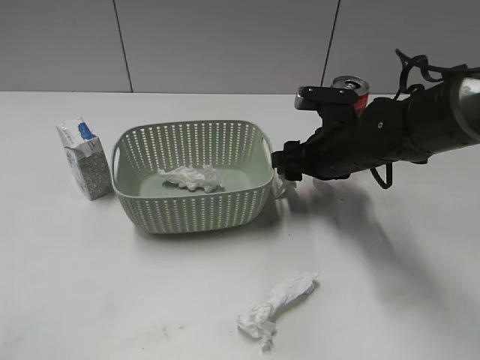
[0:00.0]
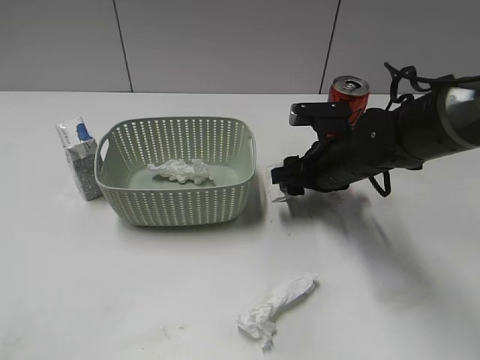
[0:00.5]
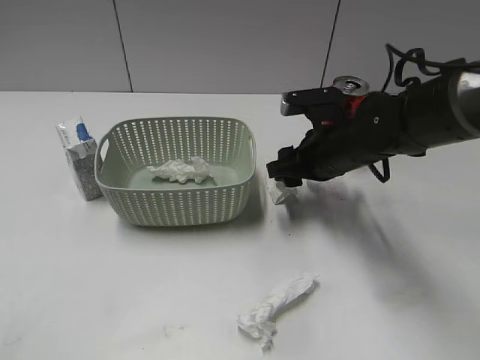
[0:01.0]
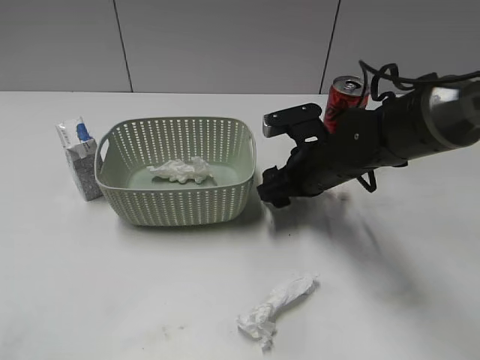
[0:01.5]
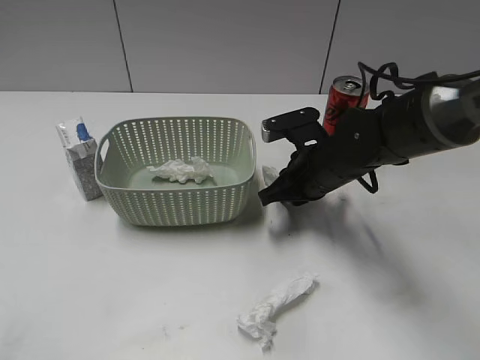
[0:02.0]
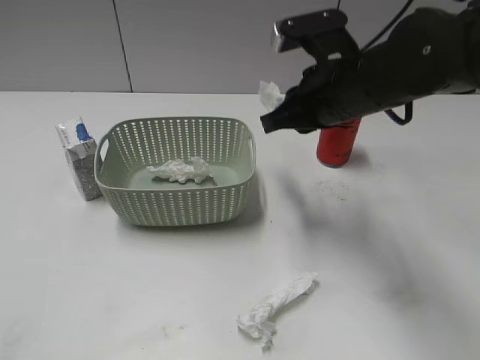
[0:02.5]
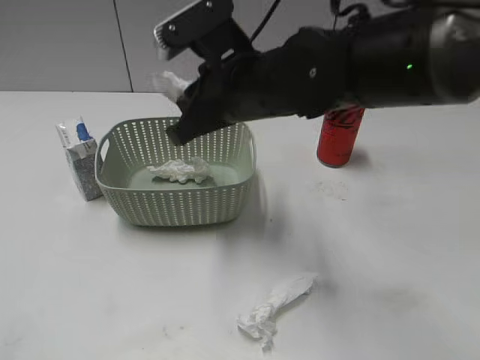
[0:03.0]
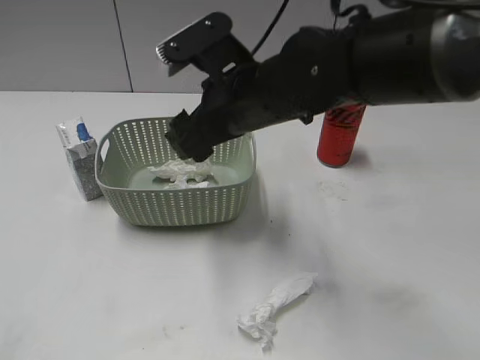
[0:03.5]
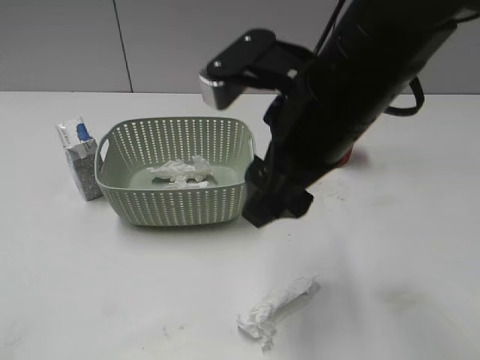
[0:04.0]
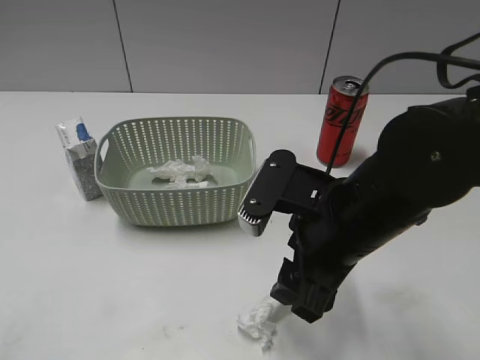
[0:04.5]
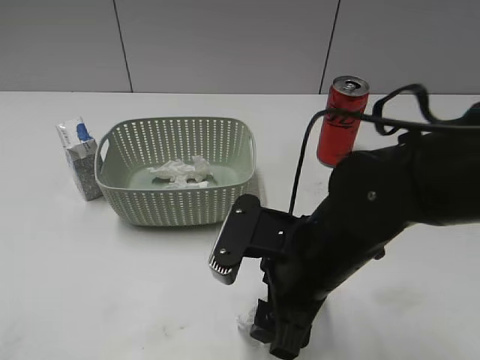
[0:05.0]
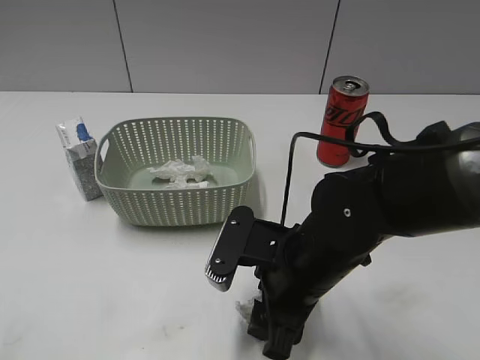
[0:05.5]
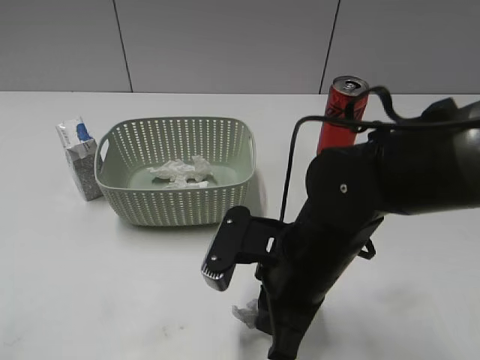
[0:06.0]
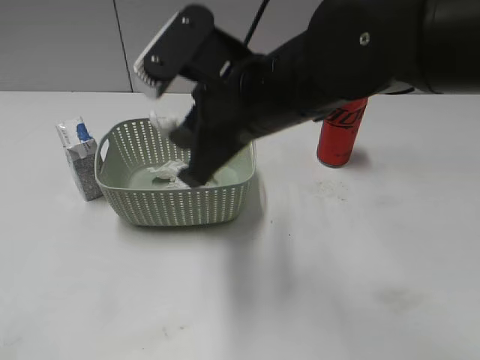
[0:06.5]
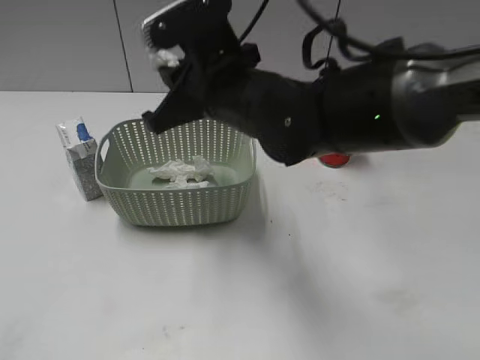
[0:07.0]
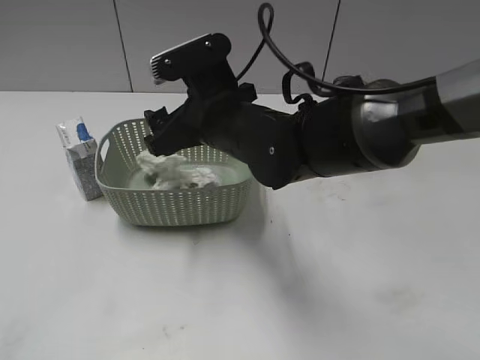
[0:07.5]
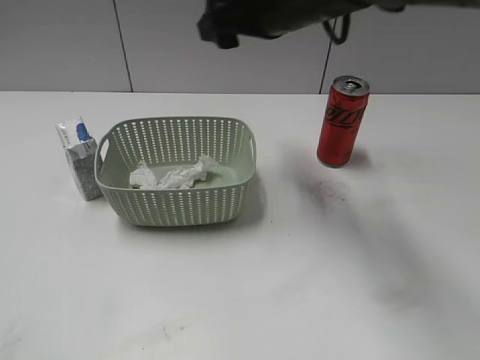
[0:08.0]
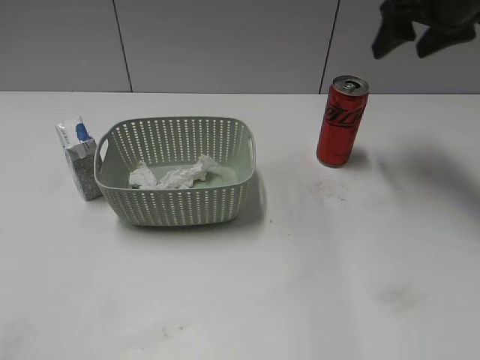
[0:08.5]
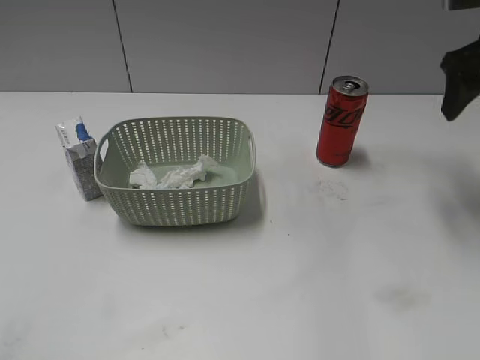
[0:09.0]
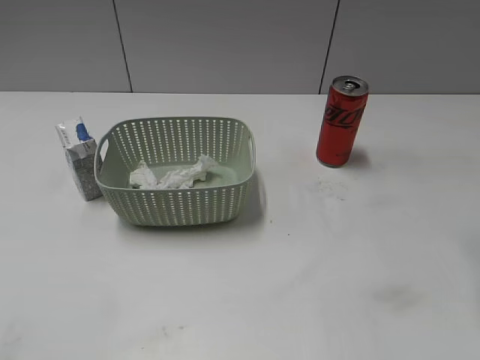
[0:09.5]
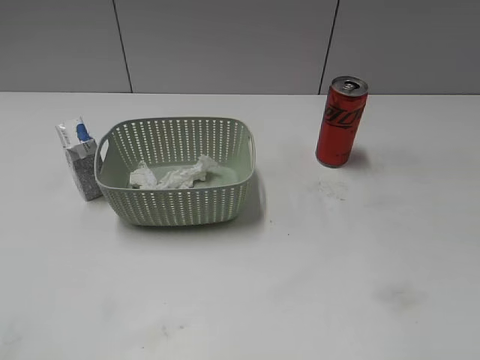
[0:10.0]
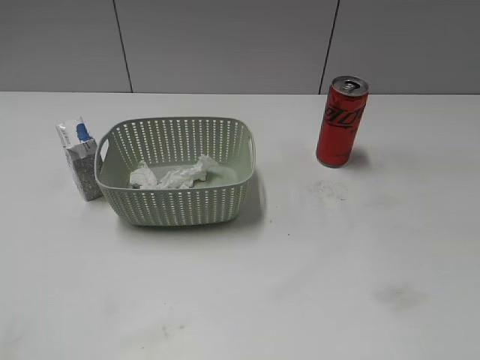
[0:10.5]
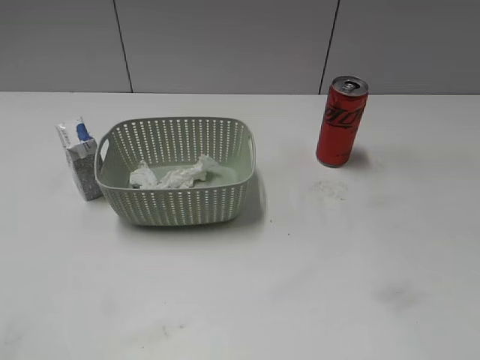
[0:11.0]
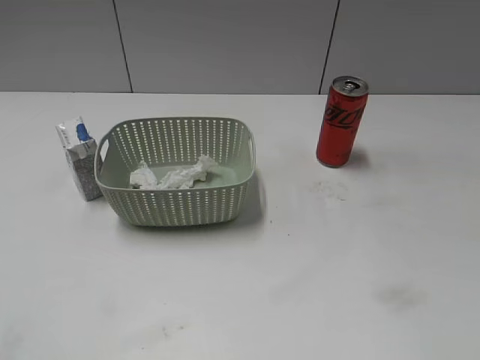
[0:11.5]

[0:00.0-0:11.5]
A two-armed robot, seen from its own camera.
Step, 0:00.0 to 0:02.0: Grasp the waste paper with right gripper.
Step, 0:01.0 to 0:07.5: Place the waste paper in the basket with right gripper.
Step, 0:04.0 to 0:05.5: Grasp the waste paper with right gripper.
0:00.0 to 0:02.0: The right gripper closes its fingers.
0:02.0 to 0:04.0: The right gripper heads upward and backward, covering approximately 20 cm, and opens.
0:04.0 to 0:06.0: The right gripper heads downward, covering about 15 cm, and closes.
0:06.0 to 0:07.5: The right gripper goes about 15 cm forward and to the left, and opens its fingers.
0:07.5 to 0:09.5: The right gripper heads to the right, covering some 30 cm.

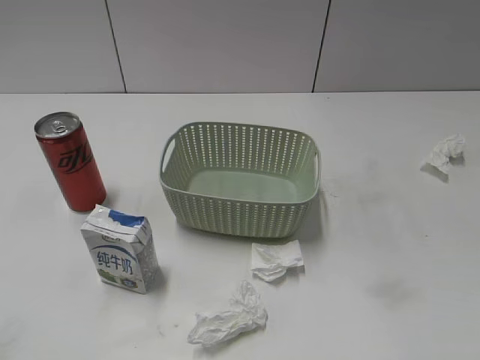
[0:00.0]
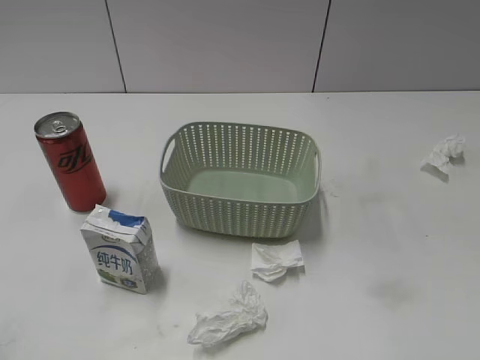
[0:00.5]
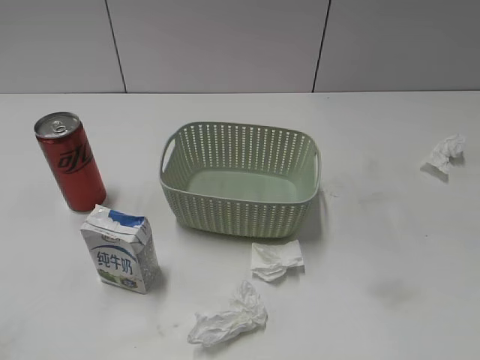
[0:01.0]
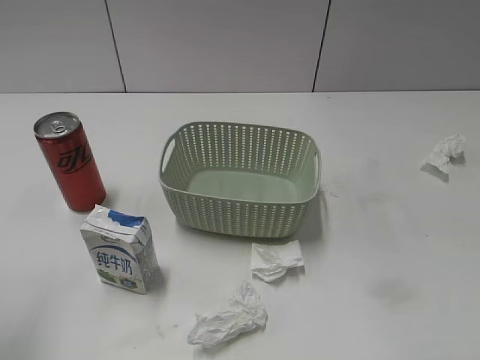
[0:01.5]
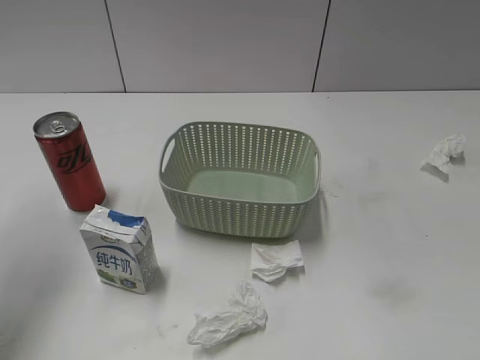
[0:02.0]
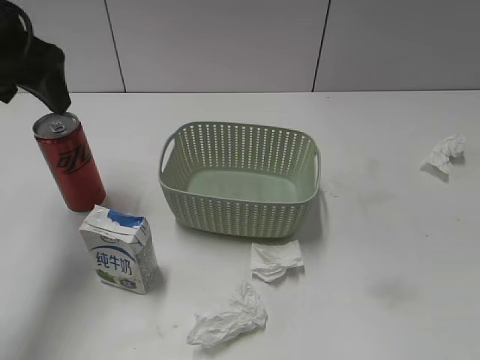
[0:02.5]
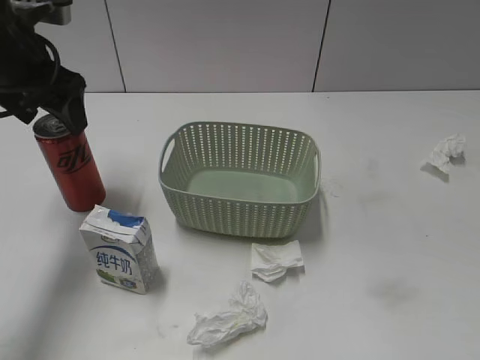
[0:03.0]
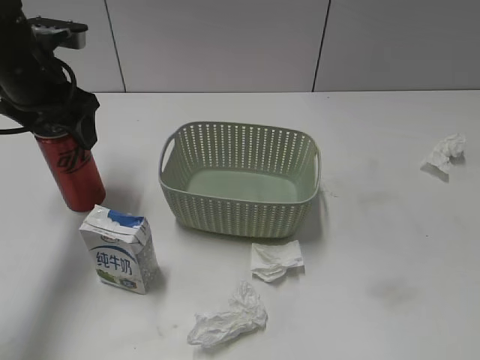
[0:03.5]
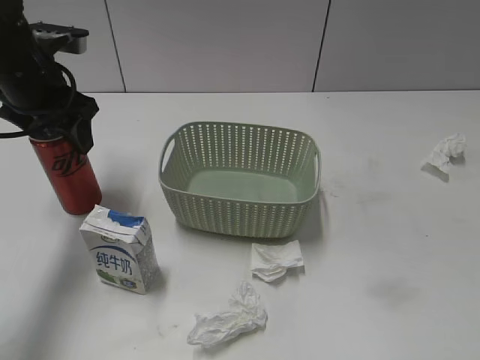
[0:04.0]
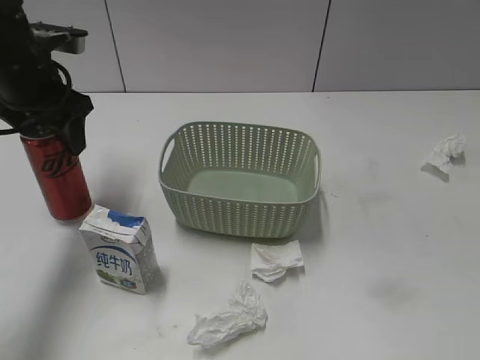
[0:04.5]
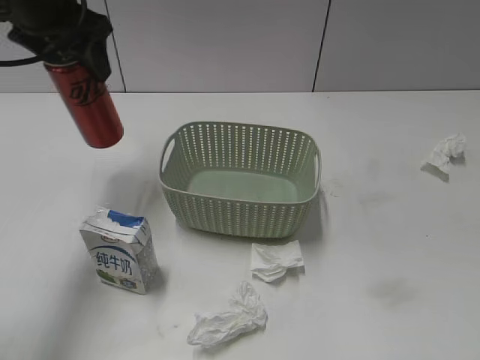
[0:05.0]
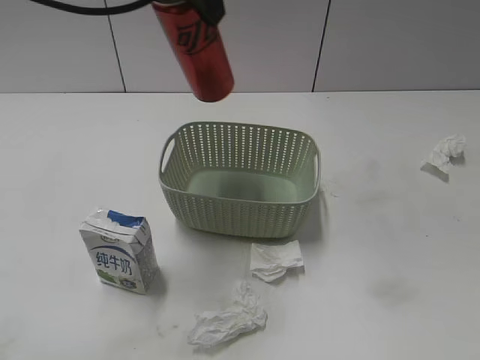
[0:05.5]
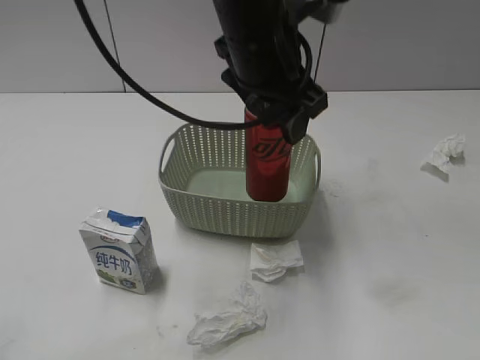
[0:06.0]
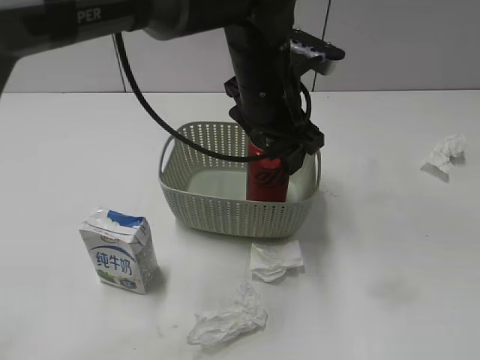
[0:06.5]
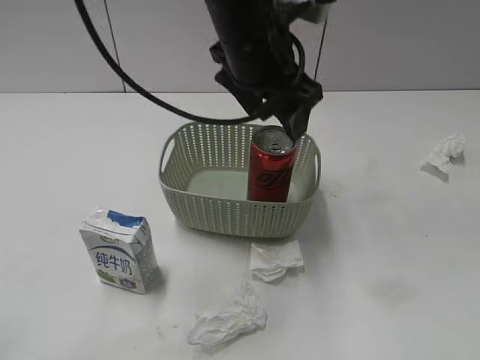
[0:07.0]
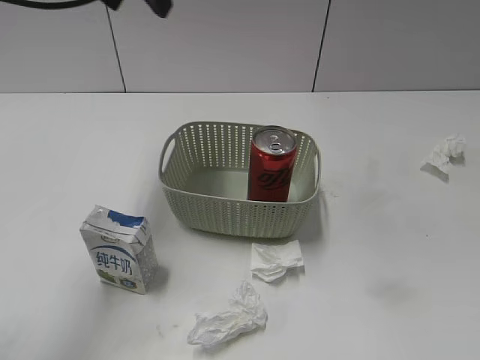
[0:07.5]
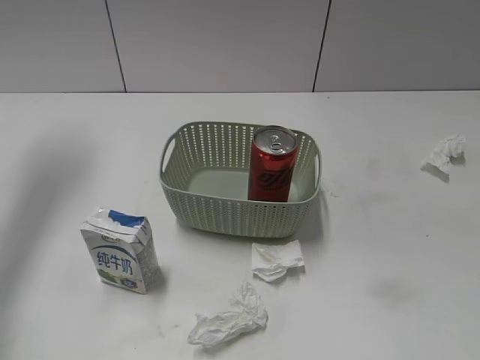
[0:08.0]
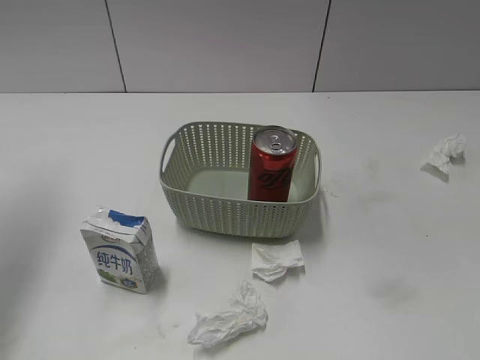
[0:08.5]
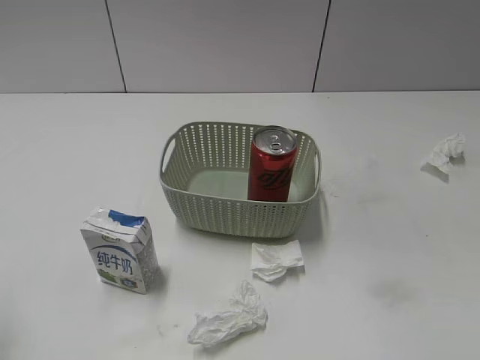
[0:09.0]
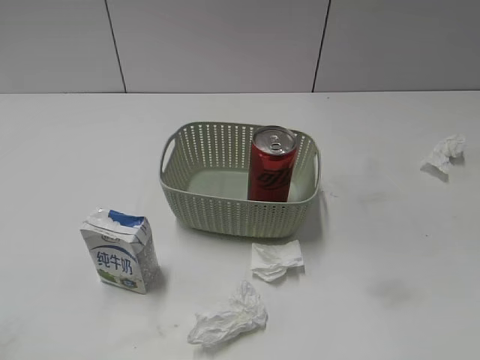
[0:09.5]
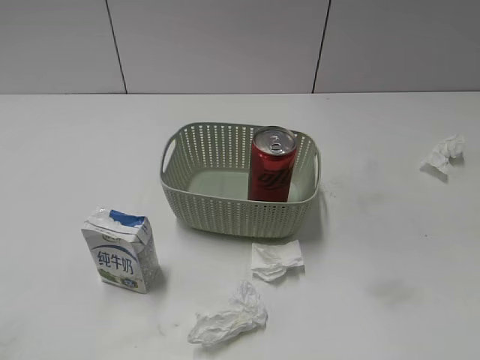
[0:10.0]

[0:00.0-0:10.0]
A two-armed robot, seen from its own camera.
Step, 0:02.5 to 0:03.5: Grasp the cola can with left gripper.
Step, 0:04.0 to 0:07.0: Place the cola can in the basket with left gripper.
0:02.0 to 0:04.0: The left gripper is displaced downward, forward and to the right by some 20 cm, and closes.
0:04.0 to 0:06.0: The left gripper moves to the right, about 25 cm.
0:06.0 to 0:08.0: The left gripper travels to the left by some 35 cm, and opens.
0:08.0 to 0:10.0: The left gripper travels backward by some 40 cm.

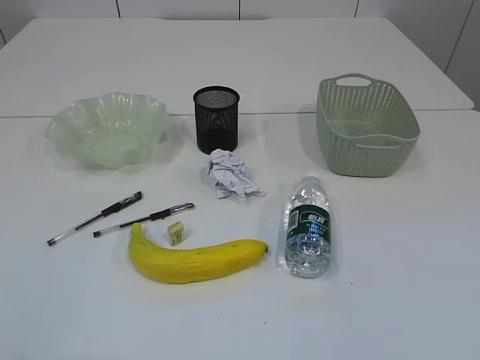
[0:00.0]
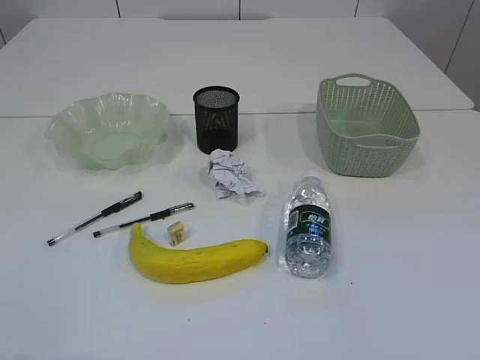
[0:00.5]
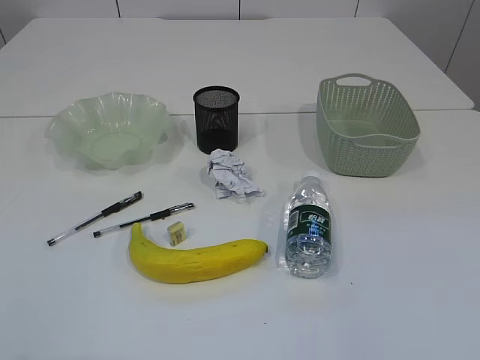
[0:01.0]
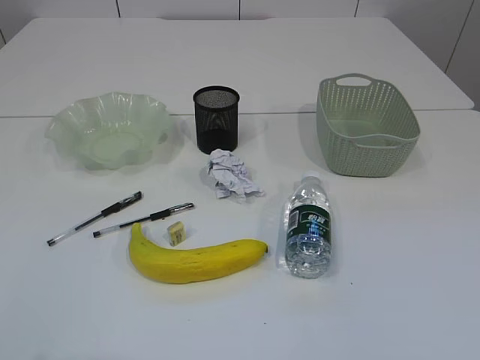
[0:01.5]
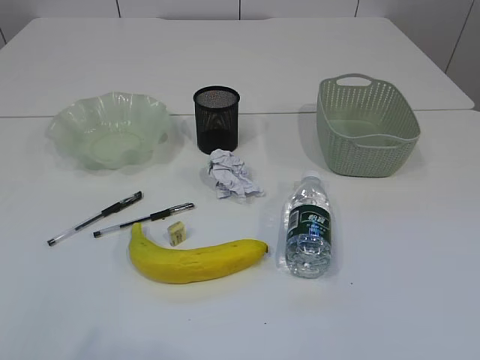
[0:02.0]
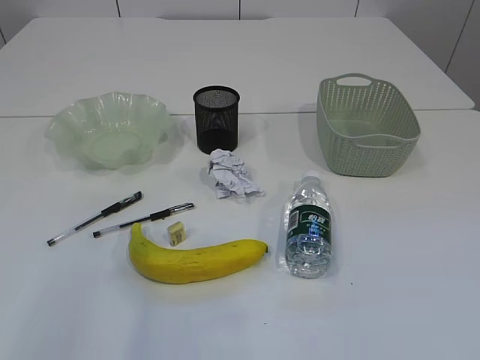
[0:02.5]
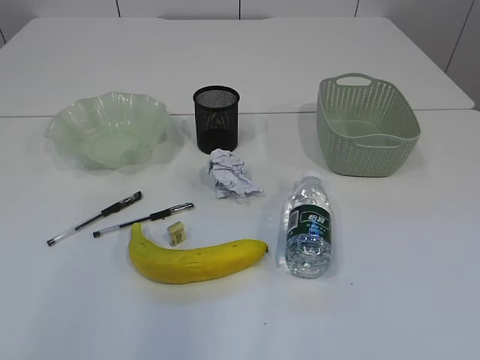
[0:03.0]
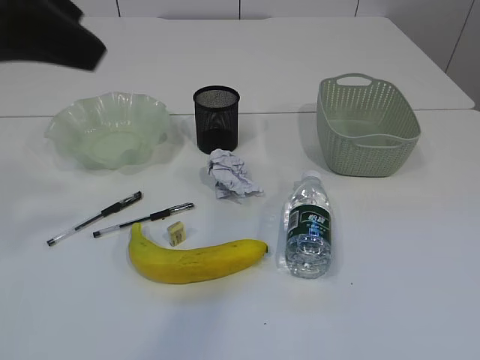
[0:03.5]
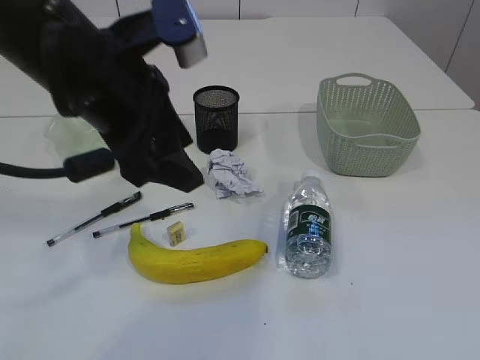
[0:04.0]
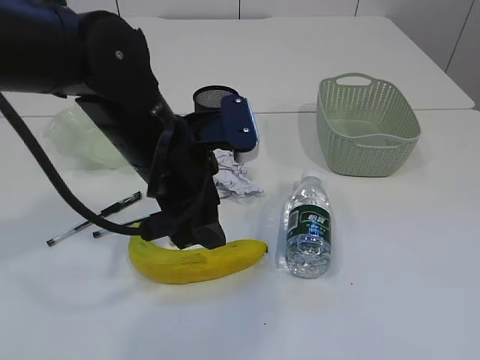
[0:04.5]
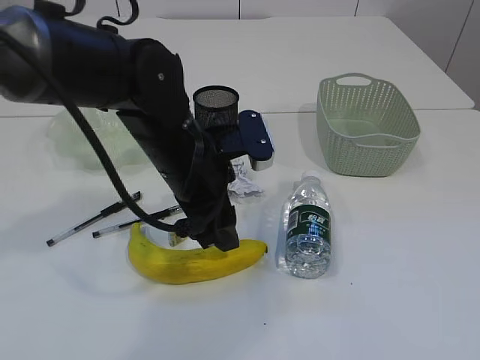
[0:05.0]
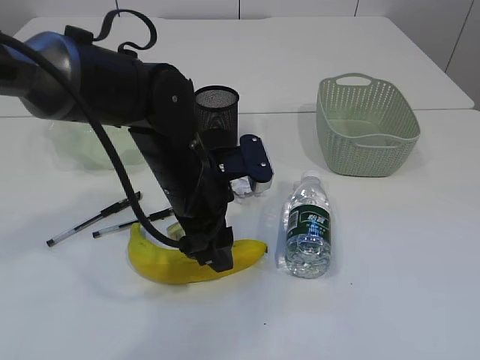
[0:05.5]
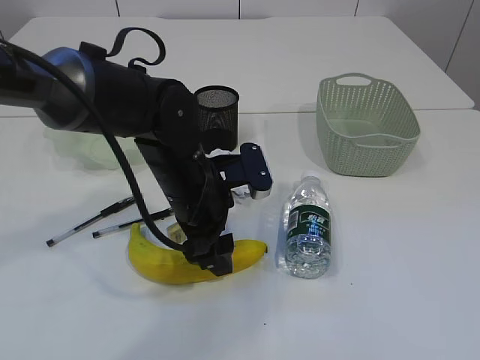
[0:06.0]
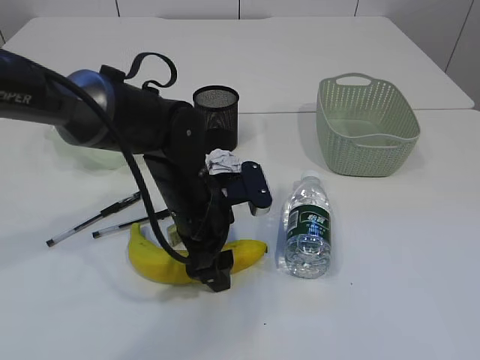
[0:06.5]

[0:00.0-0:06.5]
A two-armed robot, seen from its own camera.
0:02.0 to 0:04.5: The left gripper is displaced forward and to the right by roughly 35 cm.
0:04.5 to 0:06.5: The left gripper shifts roughly 10 cm downward.
